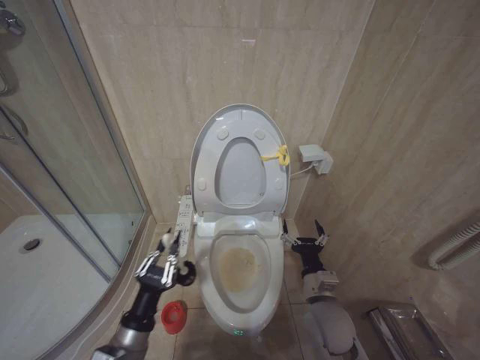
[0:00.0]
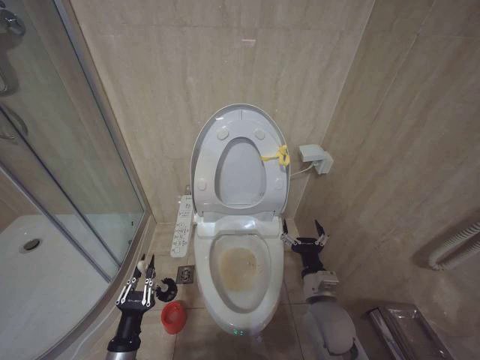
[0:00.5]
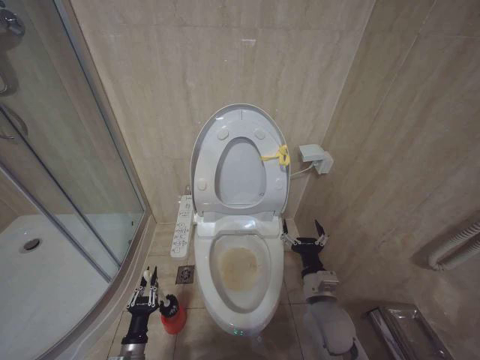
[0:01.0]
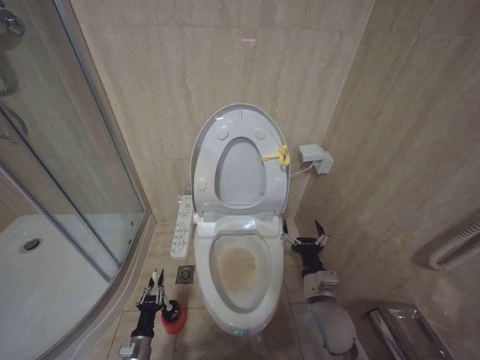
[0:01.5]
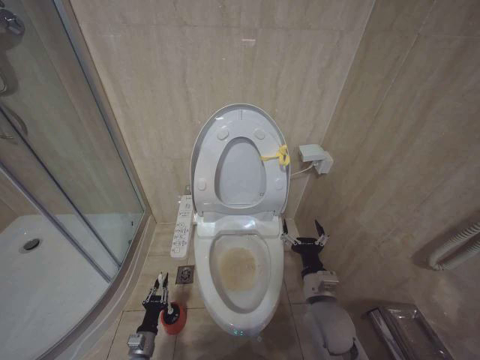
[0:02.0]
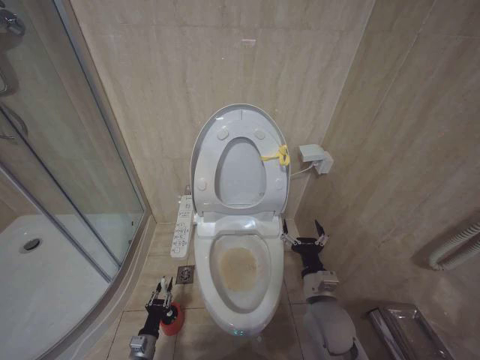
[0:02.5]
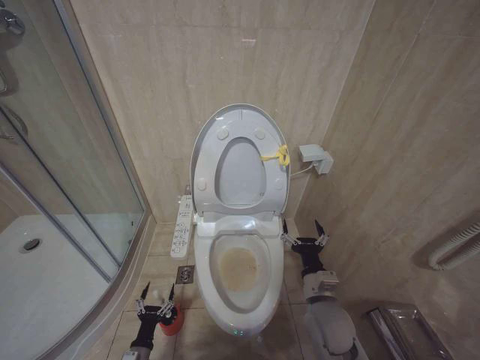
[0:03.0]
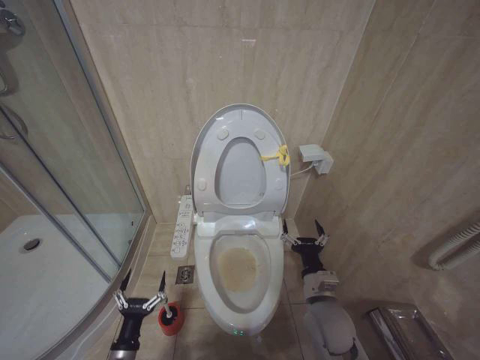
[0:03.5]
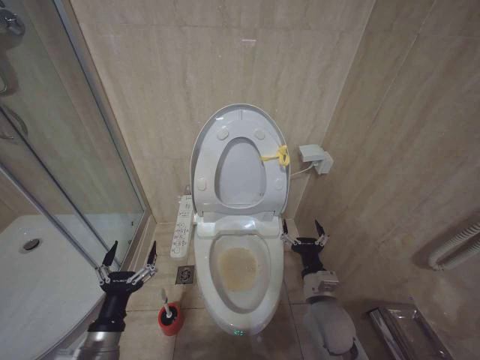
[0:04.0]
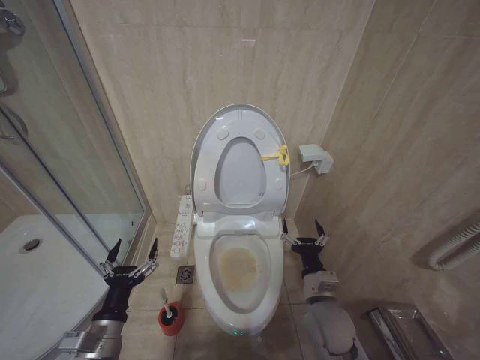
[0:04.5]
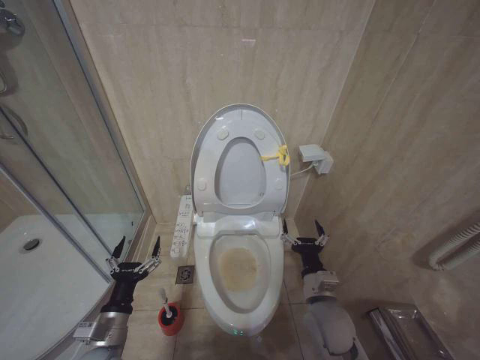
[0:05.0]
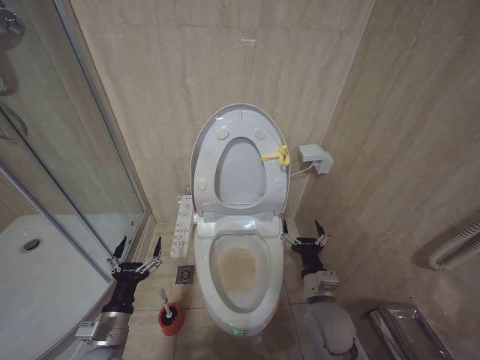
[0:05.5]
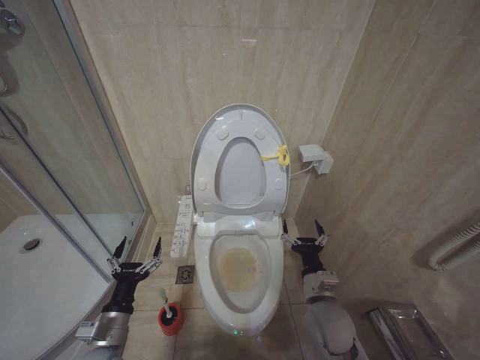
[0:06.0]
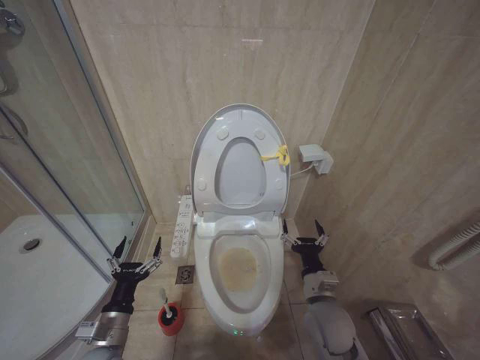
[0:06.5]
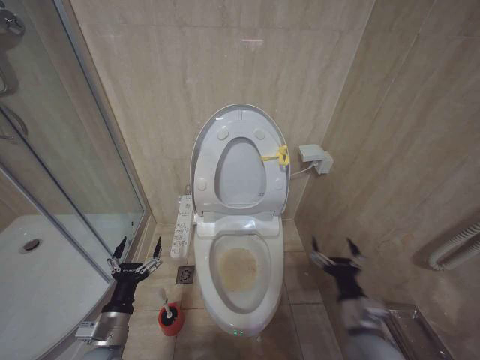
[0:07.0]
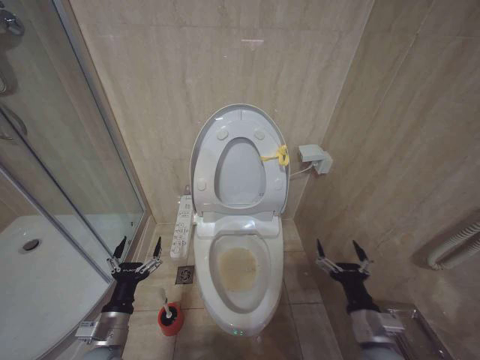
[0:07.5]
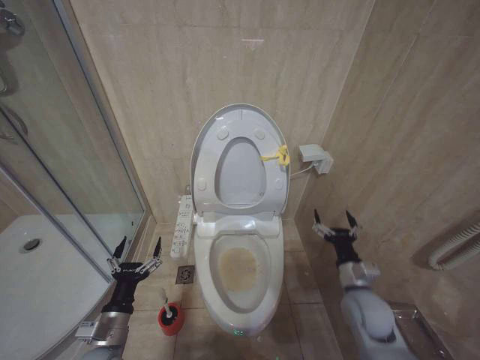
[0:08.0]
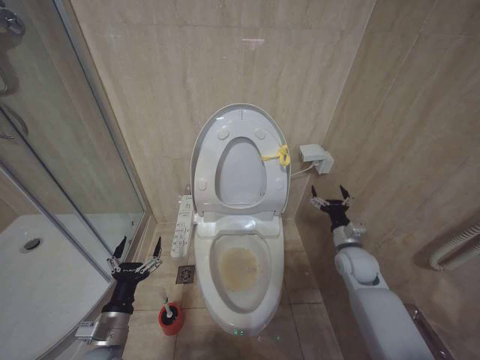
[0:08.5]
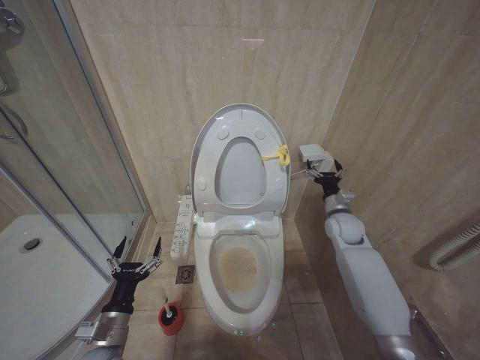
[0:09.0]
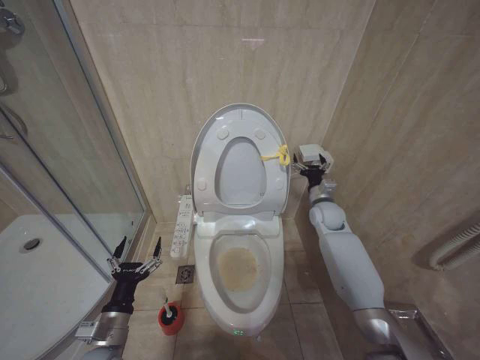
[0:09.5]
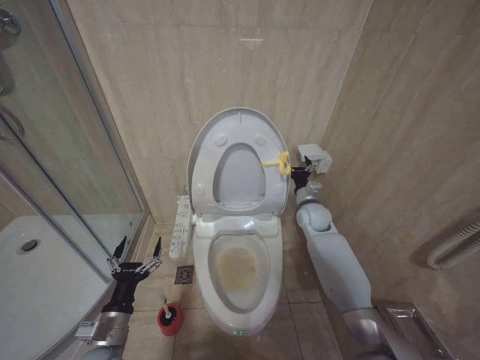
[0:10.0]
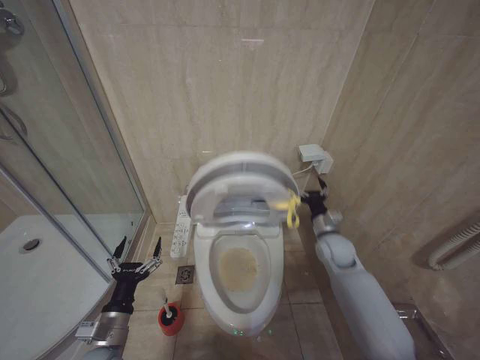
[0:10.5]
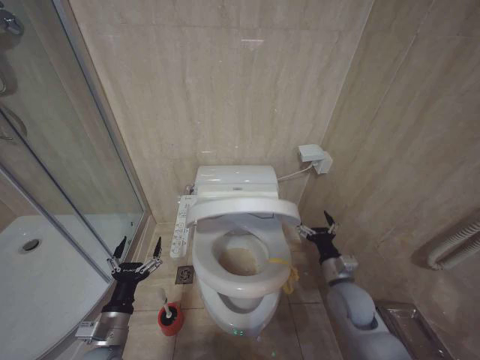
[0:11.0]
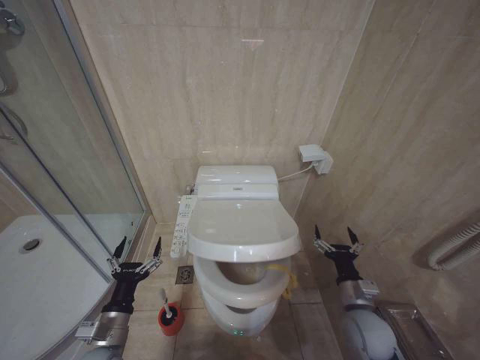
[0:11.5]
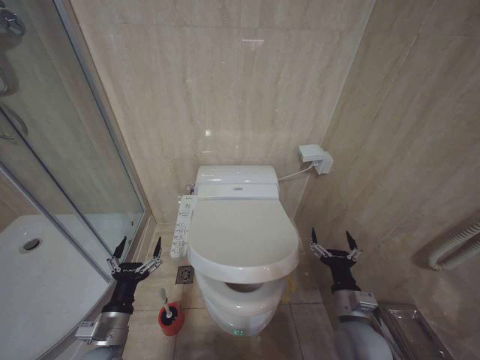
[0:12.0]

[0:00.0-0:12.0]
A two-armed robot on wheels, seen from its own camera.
Task of the whole recording: Open the toilet lid, clean the toilet bowl with a toilet brush, close the toilet lid, and flush.
0:00.0 to 0:02.0: The left gripper travels downward by approximately 30 cm.
0:02.0 to 0:04.0: The left gripper goes roughly 25 cm upward, and opens.
0:04.0 to 0:06.0: The grippers make only small movements.
0:06.0 to 0:08.0: The right gripper moves to the right, about 10 cm.
0:08.0 to 0:10.0: The right gripper travels forward by about 25 cm.
0:10.0 to 0:12.0: The right gripper moves backward, approximately 30 cm.

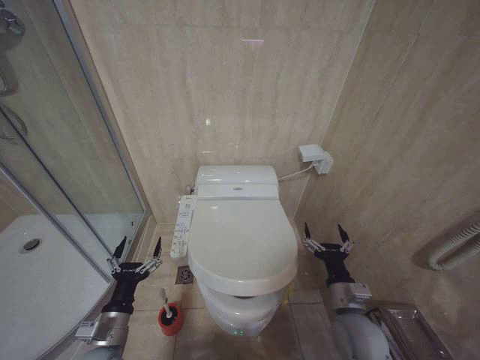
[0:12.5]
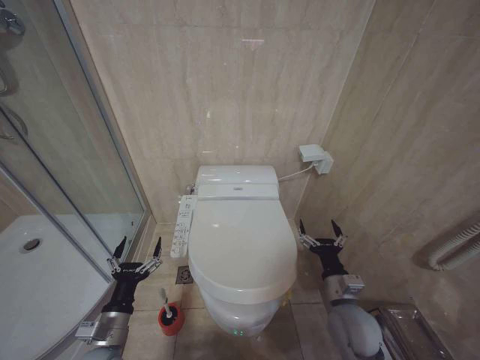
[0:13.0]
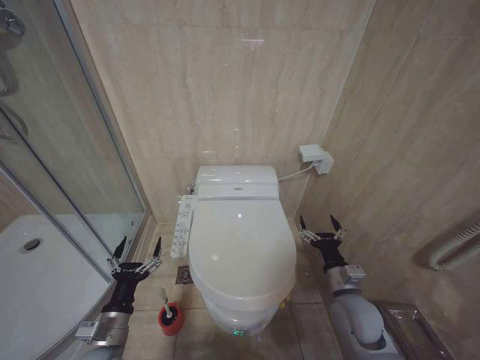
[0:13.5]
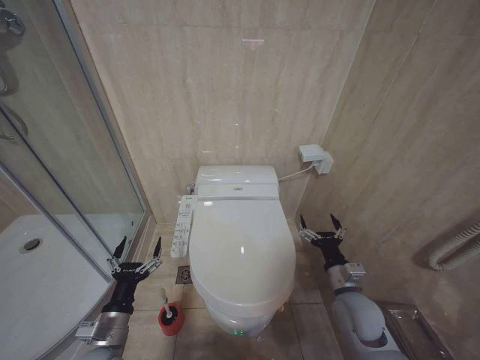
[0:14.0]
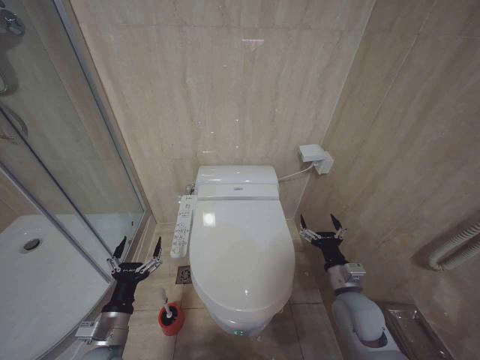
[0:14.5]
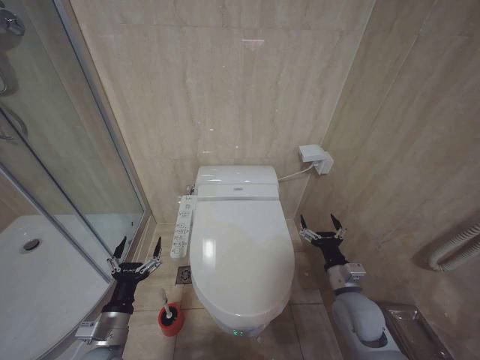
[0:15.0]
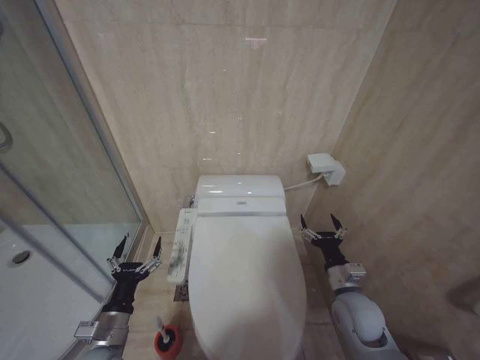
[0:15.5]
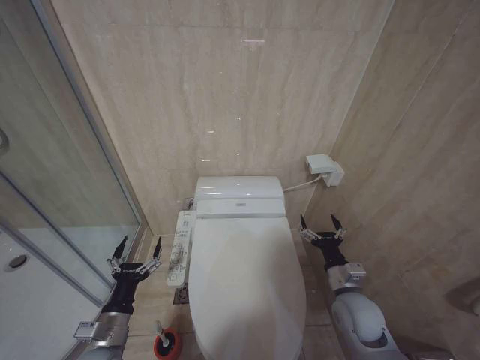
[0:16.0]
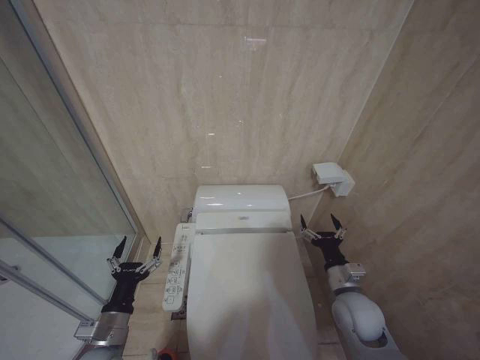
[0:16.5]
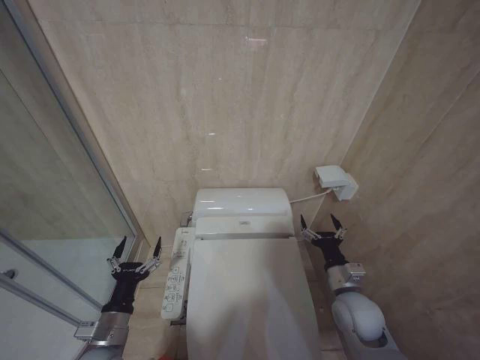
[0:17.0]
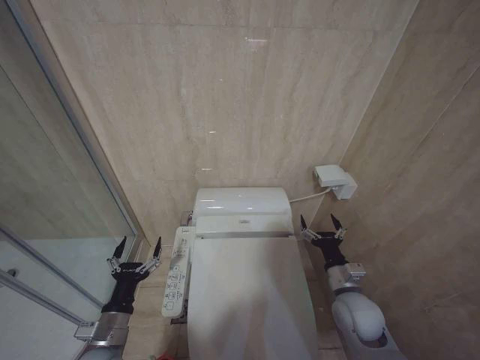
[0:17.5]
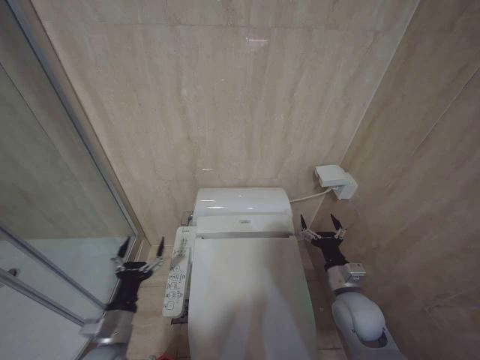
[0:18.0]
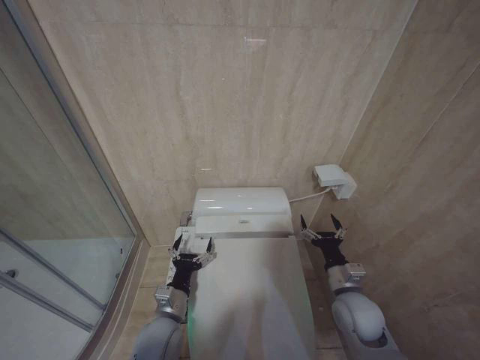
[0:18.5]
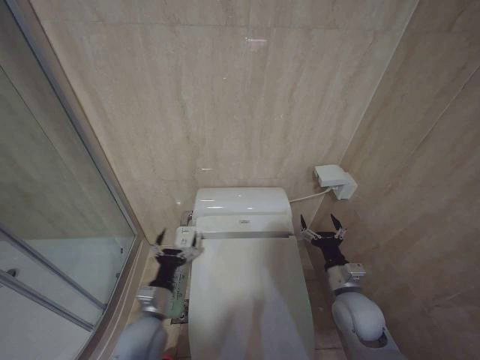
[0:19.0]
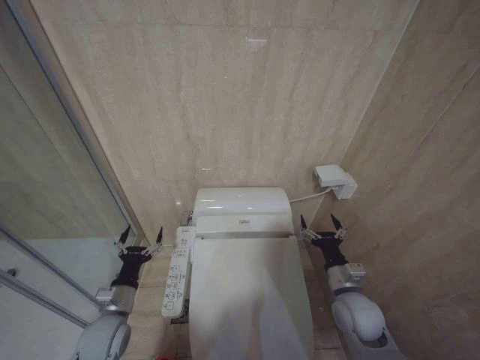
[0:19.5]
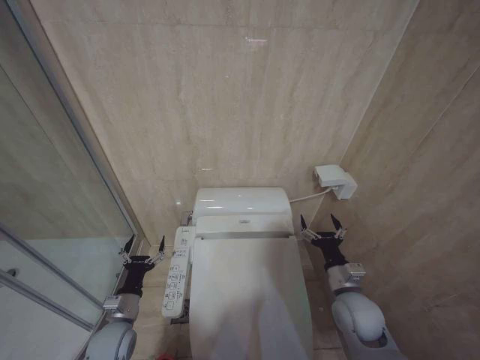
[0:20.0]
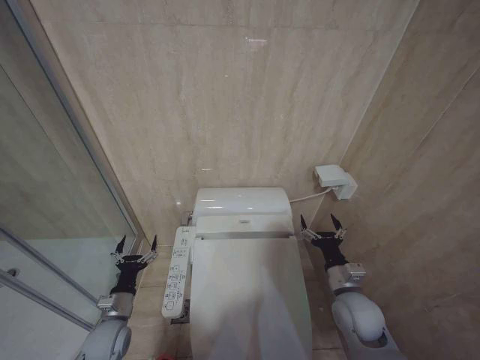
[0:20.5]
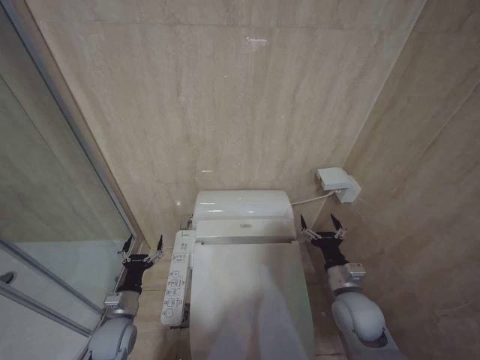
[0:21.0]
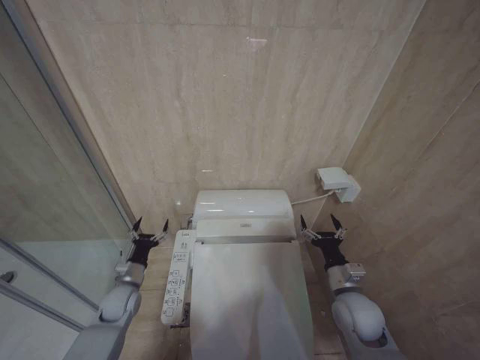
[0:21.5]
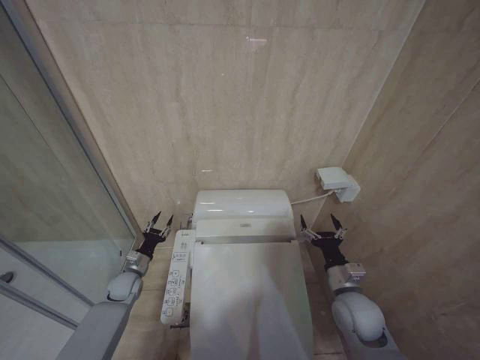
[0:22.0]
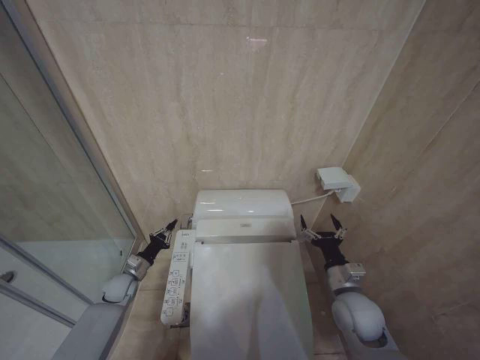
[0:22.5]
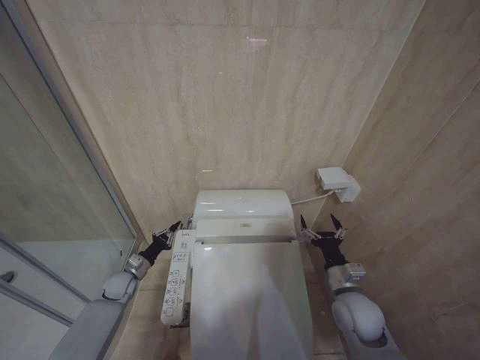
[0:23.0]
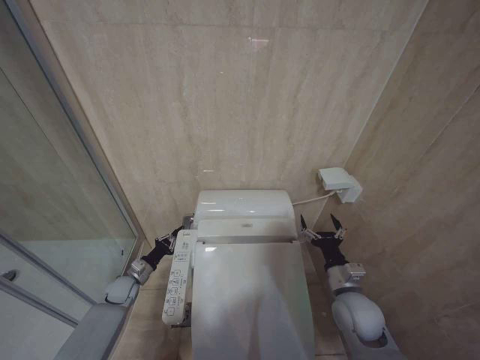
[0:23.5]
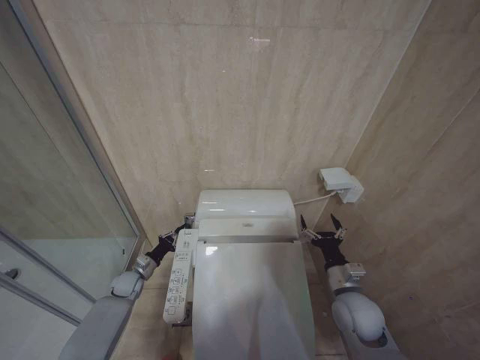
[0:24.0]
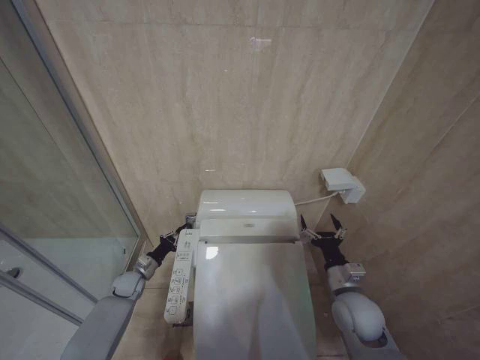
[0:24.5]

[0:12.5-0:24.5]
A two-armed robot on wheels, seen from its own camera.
Task of the whole recording: Open the toilet lid, clean the toilet bowl with a toilet brush, close the toilet lid, and flush.
0:12.5 to 0:14.5: The right gripper moves some 5 cm.
0:14.5 to 0:16.5: The two grippers keep their place.
0:16.5 to 0:18.5: The left gripper moves to the right, approximately 10 cm.
0:18.5 to 0:20.5: The left gripper is displaced to the left and downward by about 15 cm.
0:20.5 to 0:22.5: The left gripper shifts approximately 15 cm forward, and closes up.
0:22.5 to 0:24.5: The grippers make only small movements.

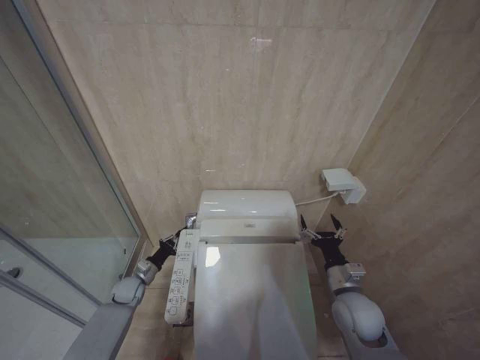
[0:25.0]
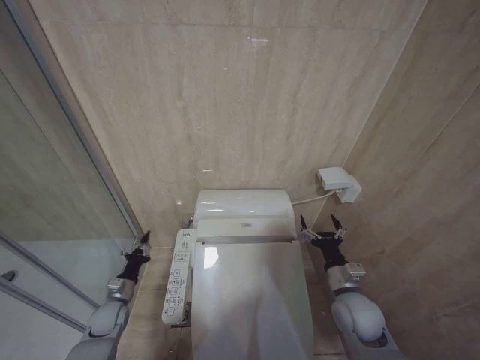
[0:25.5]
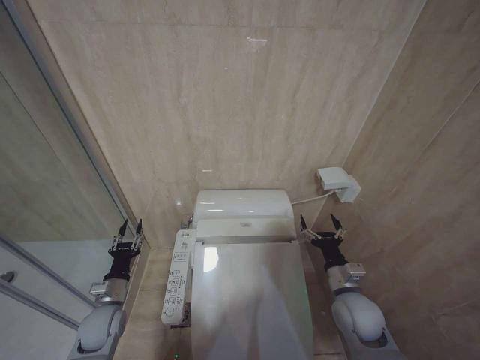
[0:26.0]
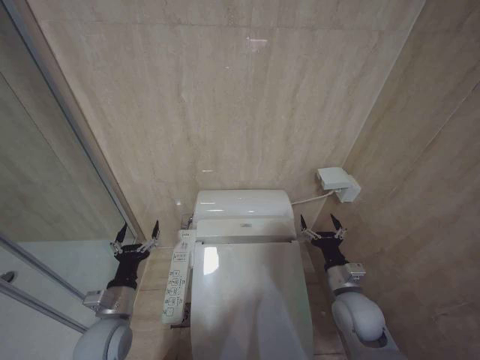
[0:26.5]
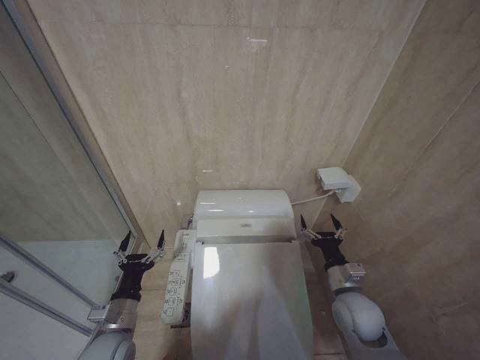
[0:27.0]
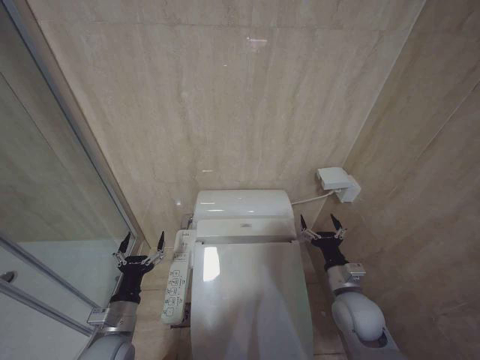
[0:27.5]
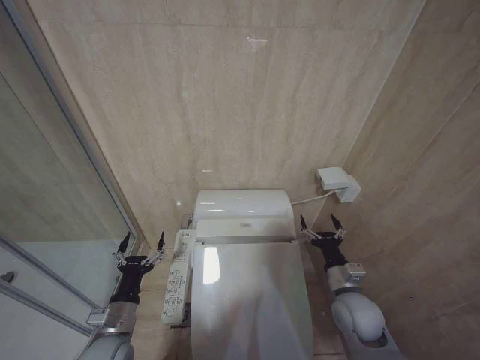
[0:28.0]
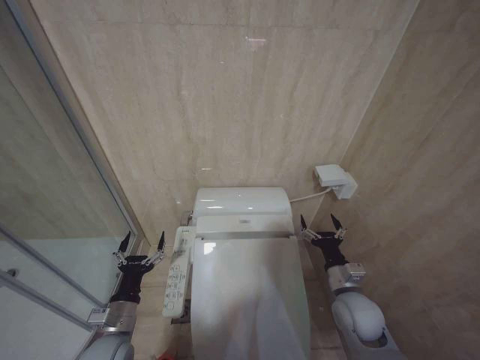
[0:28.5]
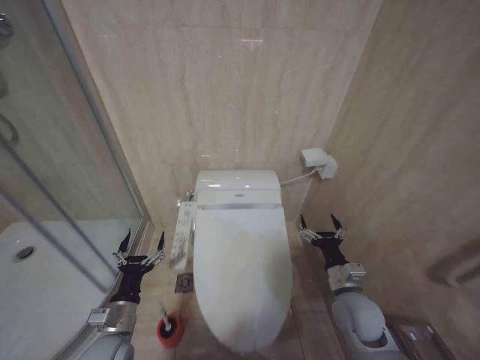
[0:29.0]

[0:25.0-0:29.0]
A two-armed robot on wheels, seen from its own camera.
Task of the whole recording: Open the toilet lid, clean the toilet bowl with a toilet brush, close the toilet lid, and flush.
0:25.0 to 0:27.0: The left gripper travels backward and upward by about 25 cm, and opens.
0:27.0 to 0:29.0: Both grippers stay put.
